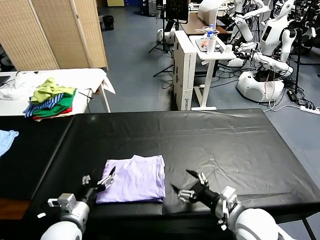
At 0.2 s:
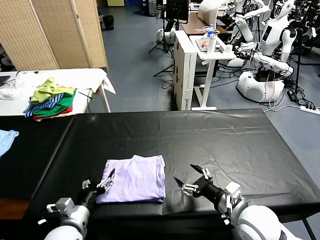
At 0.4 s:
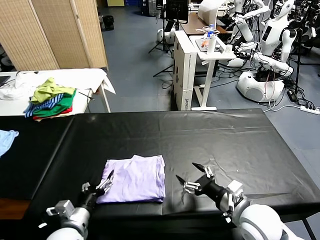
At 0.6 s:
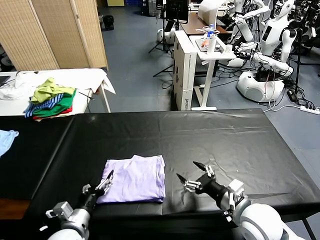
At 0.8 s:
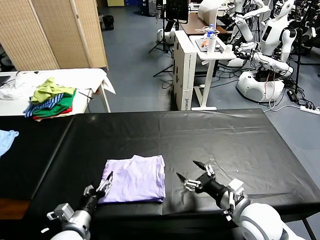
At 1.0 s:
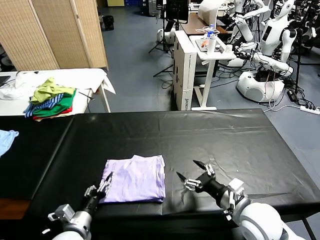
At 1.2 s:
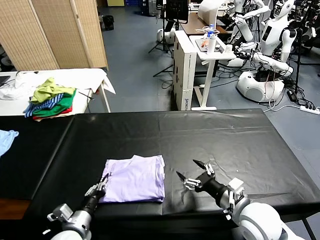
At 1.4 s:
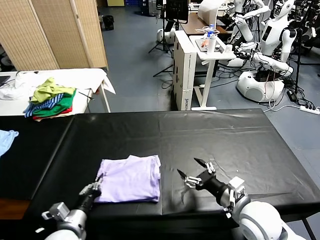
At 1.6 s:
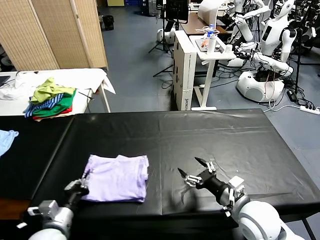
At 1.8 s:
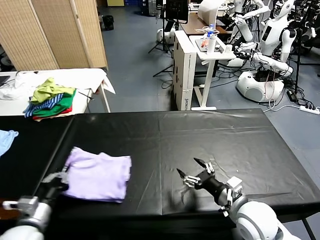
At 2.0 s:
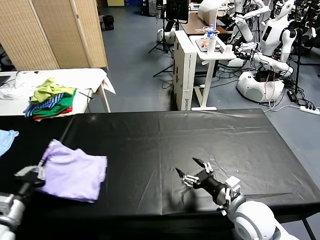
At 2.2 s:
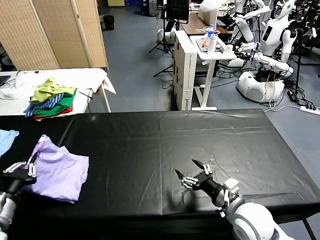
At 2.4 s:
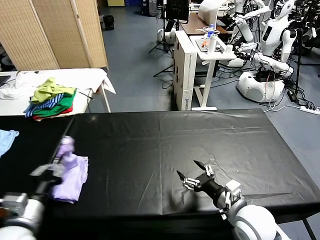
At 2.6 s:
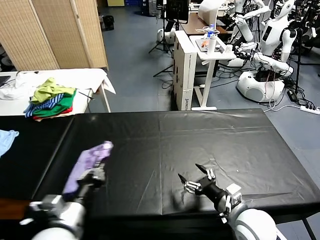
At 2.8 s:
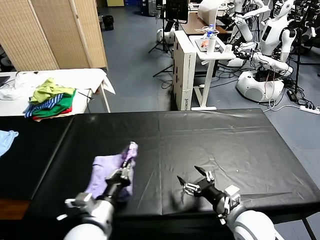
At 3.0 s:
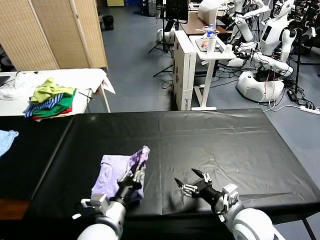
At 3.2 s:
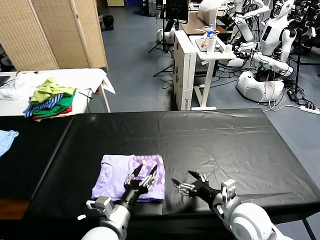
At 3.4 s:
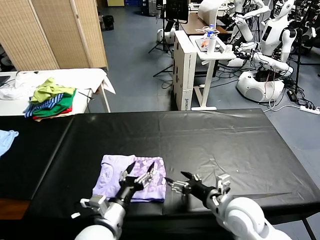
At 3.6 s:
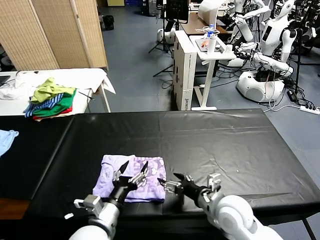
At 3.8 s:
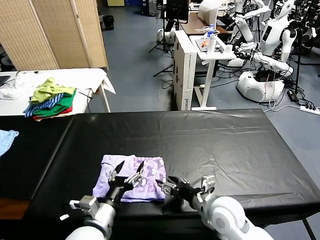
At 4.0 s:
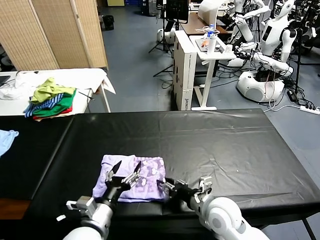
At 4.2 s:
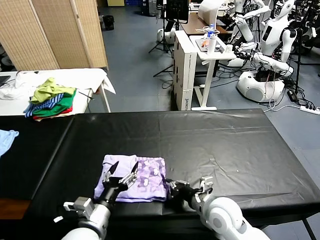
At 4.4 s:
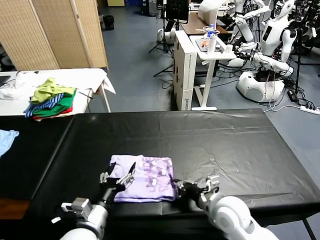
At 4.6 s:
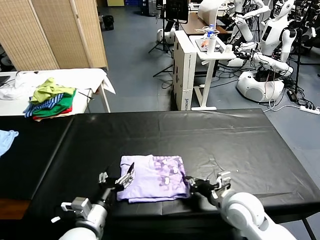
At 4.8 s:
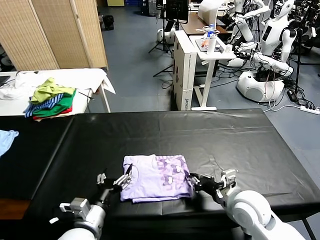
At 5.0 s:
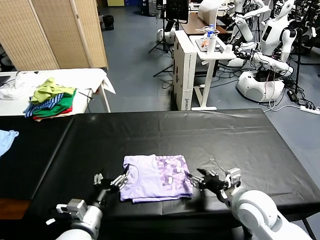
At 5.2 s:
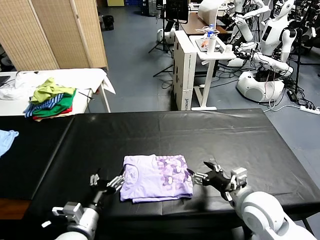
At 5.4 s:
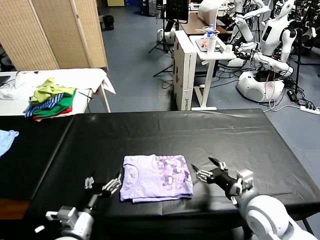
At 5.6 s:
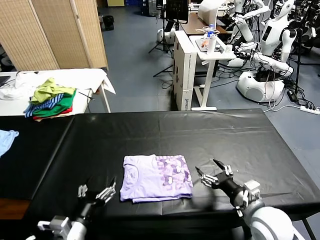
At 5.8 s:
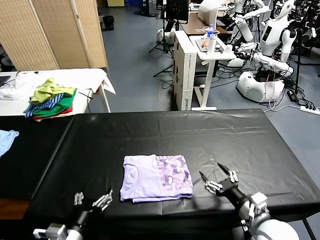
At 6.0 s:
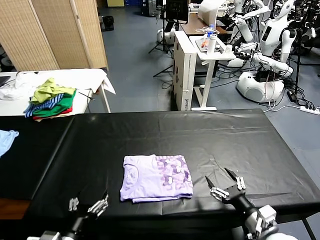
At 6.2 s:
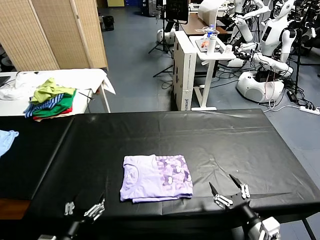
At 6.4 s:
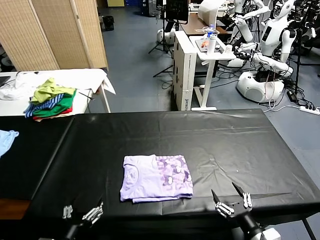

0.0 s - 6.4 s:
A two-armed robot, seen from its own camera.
Task of the whole recording: fold and organize the clothes.
Step, 0.0 s - 3.2 s: Flip the folded clothes over with left gripper.
Step, 3.4 s - 5.0 s: Drag the clothes to the center of the table.
0.0 s - 1.6 s: The left gripper closes its fingers.
1.6 s - 3.2 s: The left gripper moves to the right, approximately 15 cm, and opens up.
3.2 s - 4.8 s: The left gripper shifts about 5 cm to the left, and opens its fingers. Meanwhile the right gripper closes.
4.8 s - 6.4 s: The right gripper is displaced backward by about 15 cm, and opens its fingers; the left gripper moves backward and to the left, approximately 10 cm.
